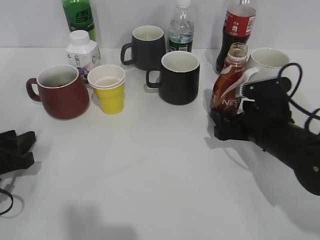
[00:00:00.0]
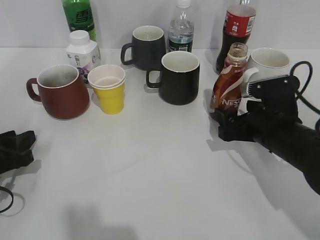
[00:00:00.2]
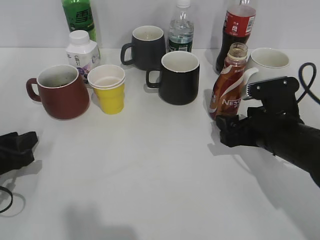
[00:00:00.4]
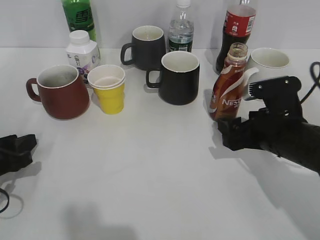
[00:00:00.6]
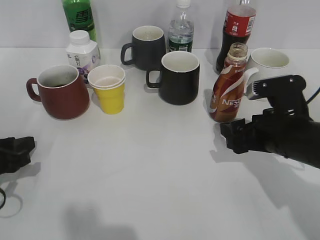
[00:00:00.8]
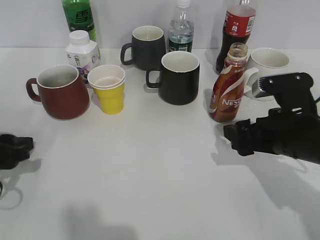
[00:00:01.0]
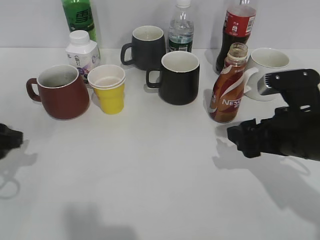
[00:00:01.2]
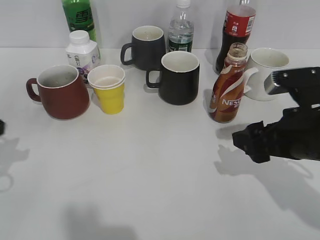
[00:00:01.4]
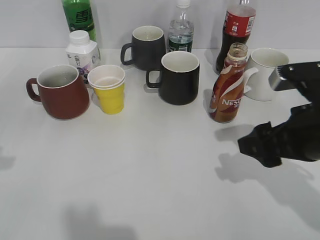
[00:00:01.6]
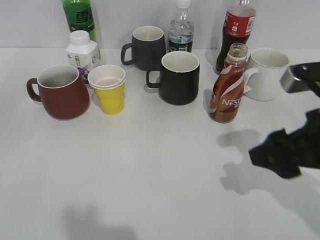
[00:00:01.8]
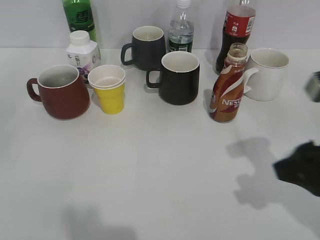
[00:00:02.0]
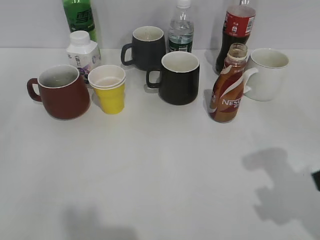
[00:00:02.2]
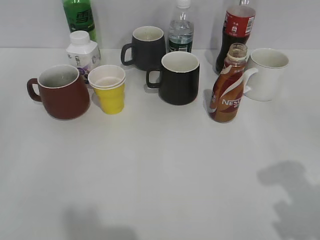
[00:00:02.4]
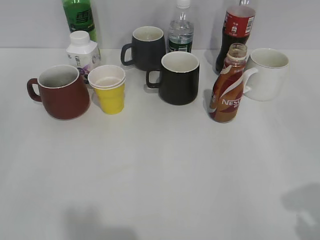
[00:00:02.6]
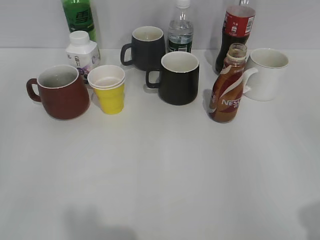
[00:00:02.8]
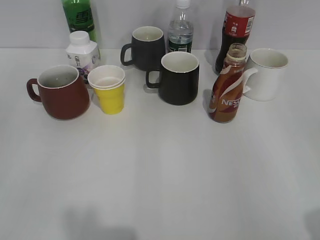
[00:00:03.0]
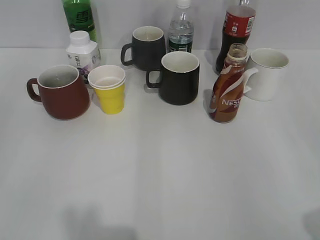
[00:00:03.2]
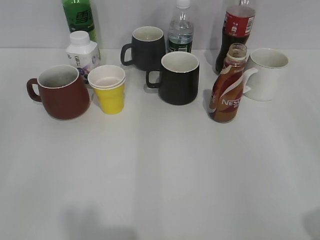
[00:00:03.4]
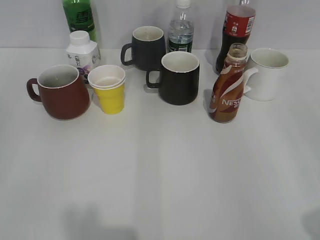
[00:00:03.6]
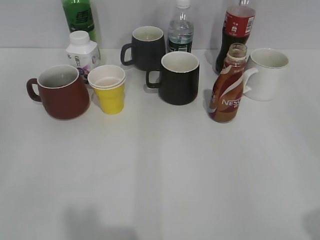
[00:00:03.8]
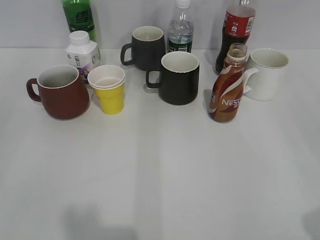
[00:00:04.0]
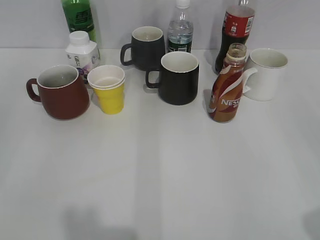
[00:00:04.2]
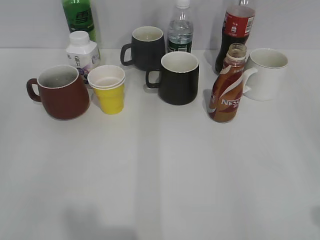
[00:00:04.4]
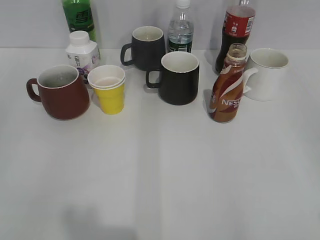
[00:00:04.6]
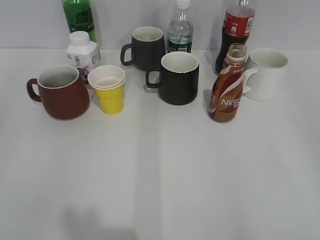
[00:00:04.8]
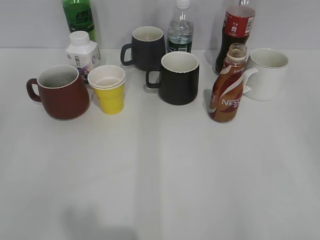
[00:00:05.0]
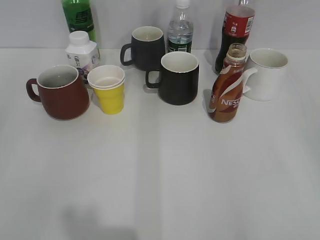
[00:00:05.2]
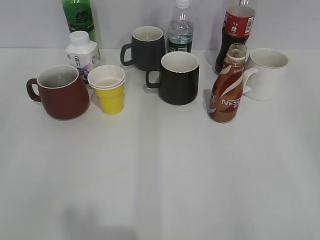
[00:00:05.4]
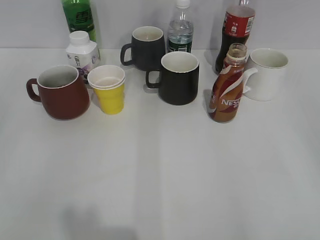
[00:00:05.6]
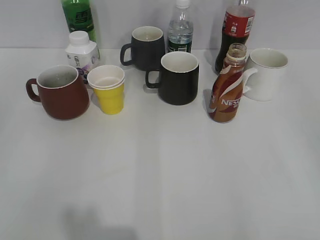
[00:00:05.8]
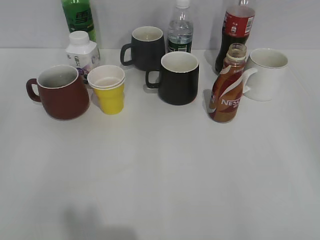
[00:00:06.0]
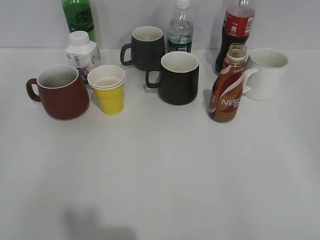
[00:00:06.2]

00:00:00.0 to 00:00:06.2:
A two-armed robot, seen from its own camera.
00:00:00.0 to 00:00:01.6: The right gripper goes about 10 cm upward and backward, while the left gripper moves upward, about 15 cm.
00:00:01.6 to 00:00:03.2: The left gripper shifts approximately 15 cm backward; the right gripper moves backward, to the right and upward, some 20 cm.
